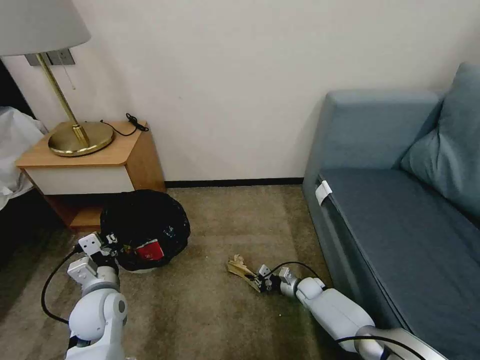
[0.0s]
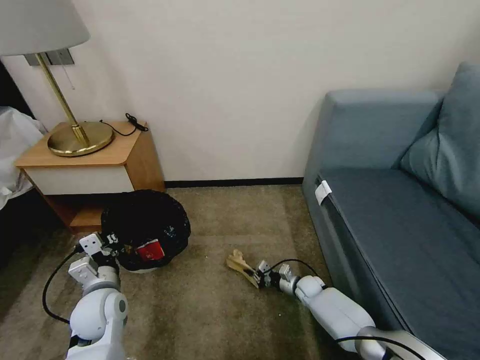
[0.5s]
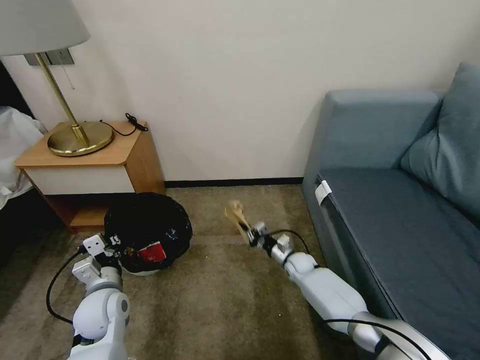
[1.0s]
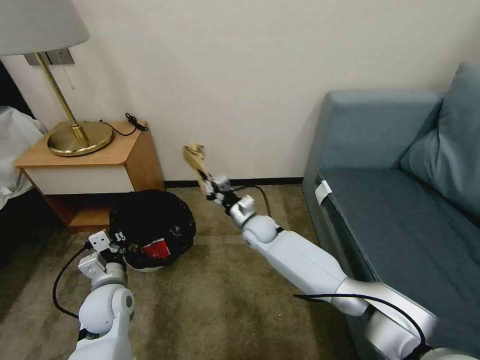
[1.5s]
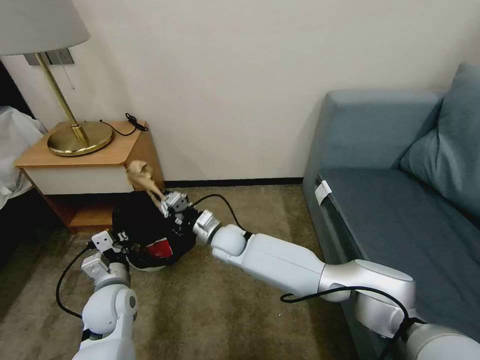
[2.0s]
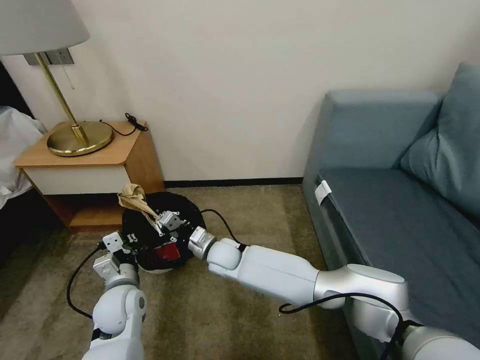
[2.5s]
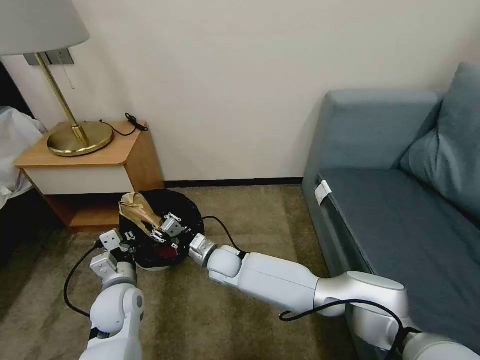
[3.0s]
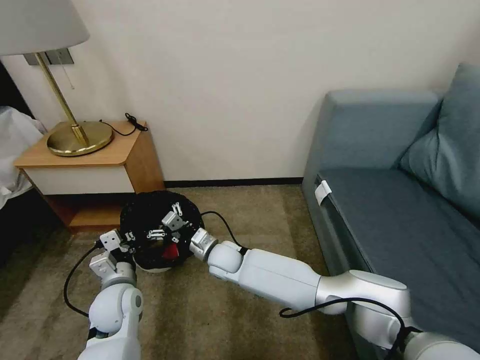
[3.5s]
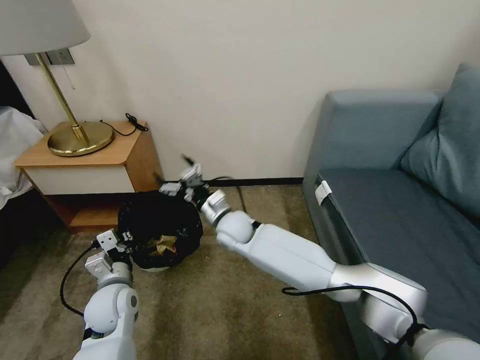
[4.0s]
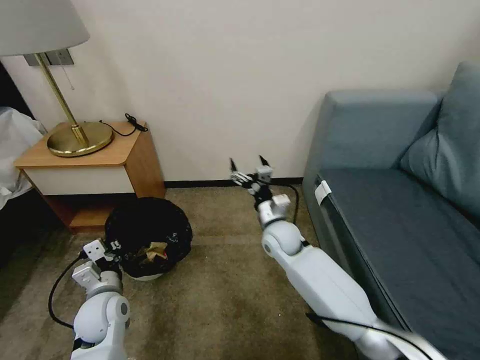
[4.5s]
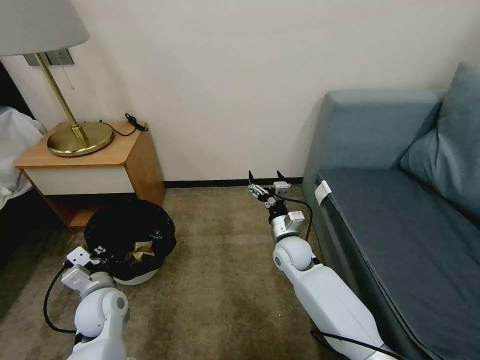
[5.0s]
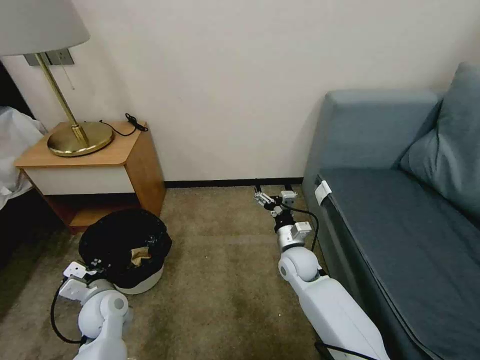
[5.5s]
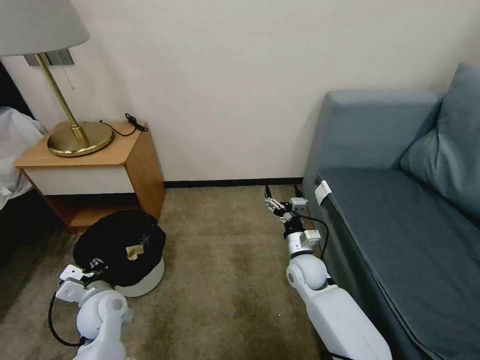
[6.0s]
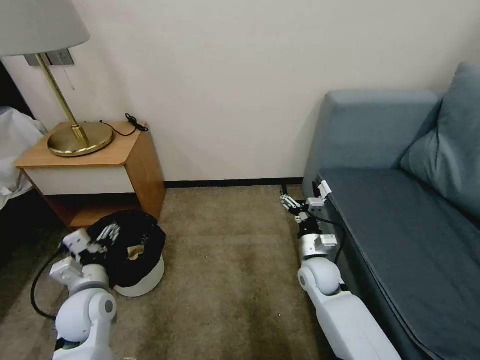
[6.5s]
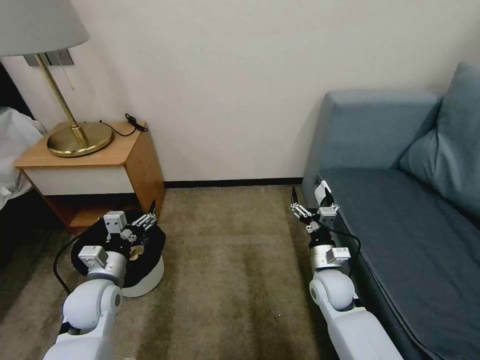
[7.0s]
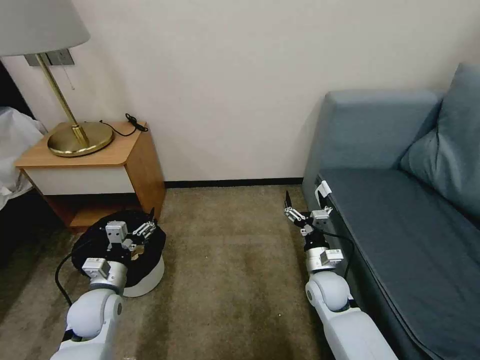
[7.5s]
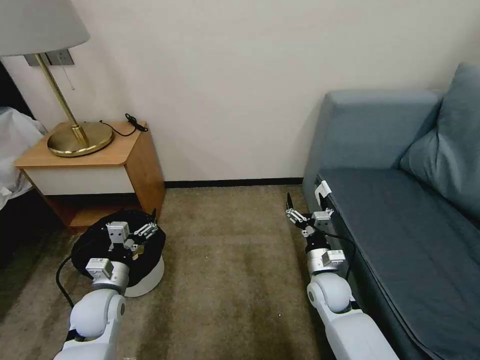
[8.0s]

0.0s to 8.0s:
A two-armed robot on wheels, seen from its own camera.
Task of the whole recording: Pick up the trash bin, then pick up the garbage on the floor and place it into the trash bin.
0.0s to 2.0s: The right gripper is displaced to the left and upward by roughly 35 cm.
2.0s to 4.0s: The right gripper changes place by some 5 cm, and opens its fingers.
4.0s to 6.0s: The right gripper goes roughly 20 cm to the right, downward and backward. The left gripper opens up.
6.0s to 8.0s: The left gripper opens its fingers; the right gripper ends up roughly 5 cm from where it was.
